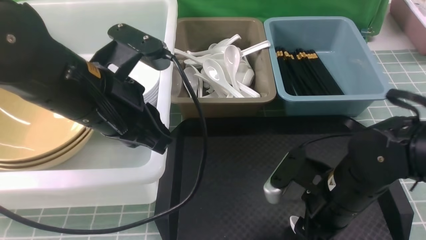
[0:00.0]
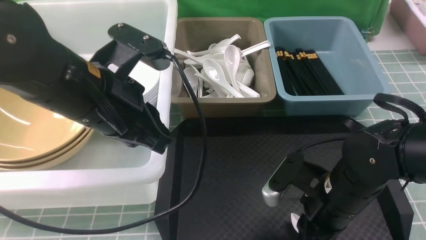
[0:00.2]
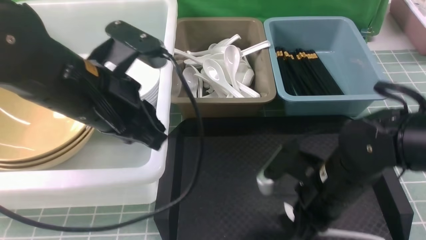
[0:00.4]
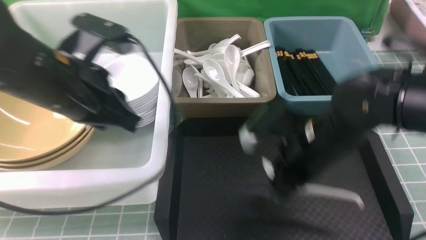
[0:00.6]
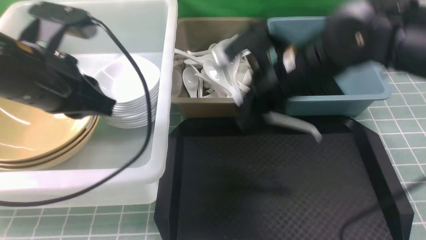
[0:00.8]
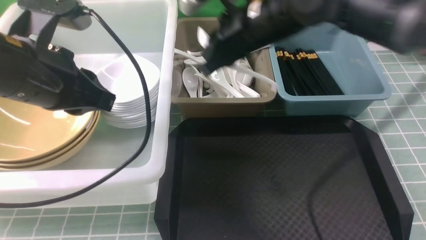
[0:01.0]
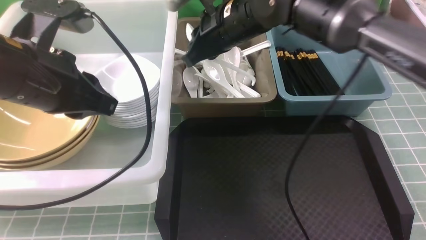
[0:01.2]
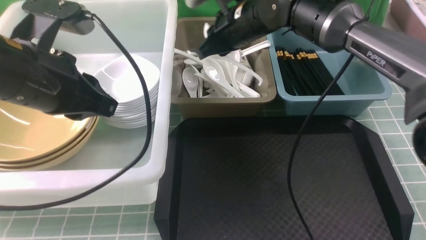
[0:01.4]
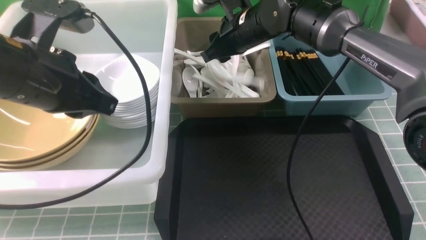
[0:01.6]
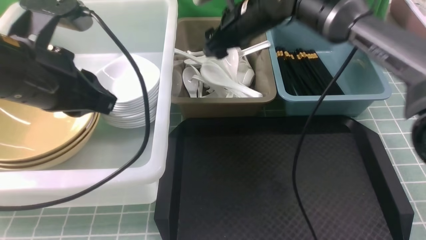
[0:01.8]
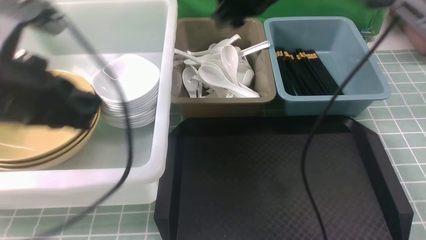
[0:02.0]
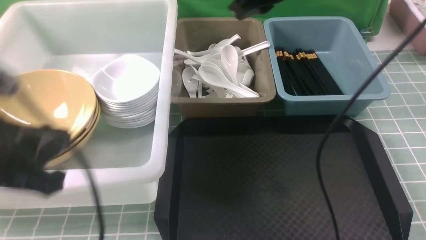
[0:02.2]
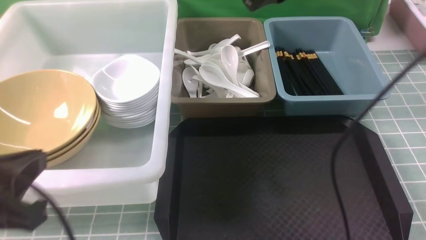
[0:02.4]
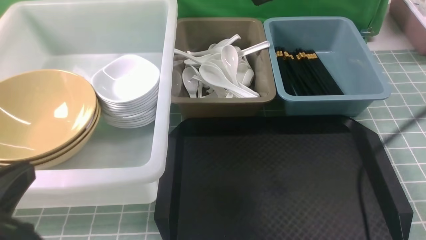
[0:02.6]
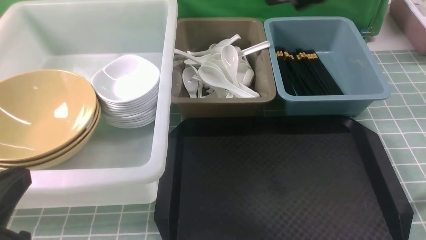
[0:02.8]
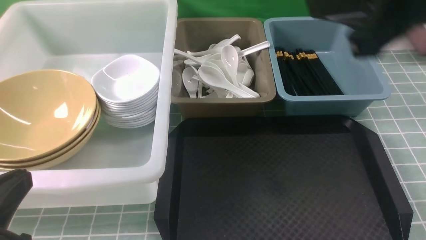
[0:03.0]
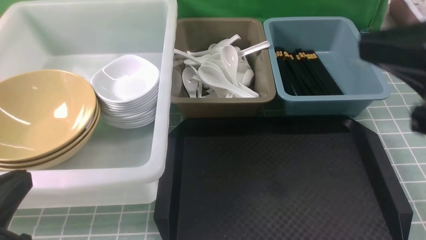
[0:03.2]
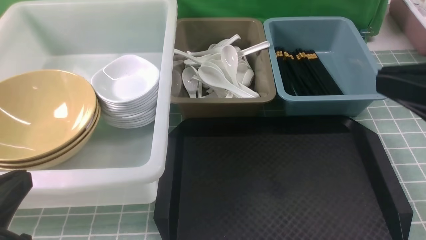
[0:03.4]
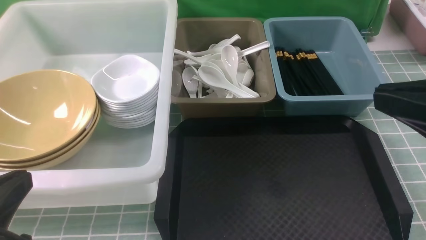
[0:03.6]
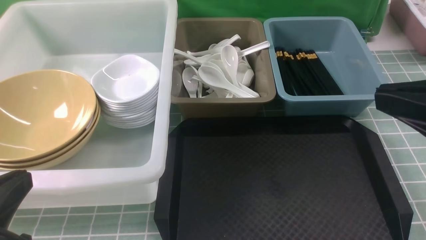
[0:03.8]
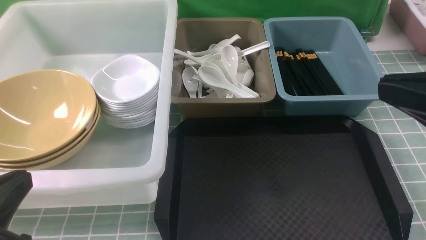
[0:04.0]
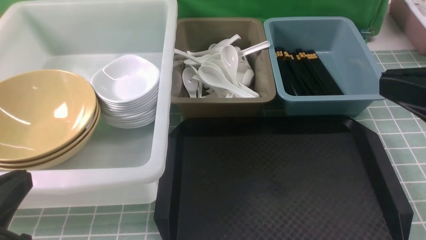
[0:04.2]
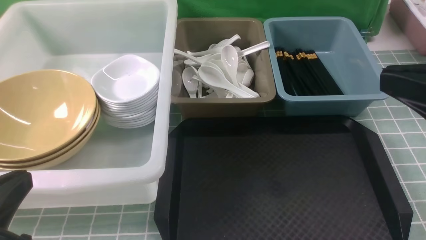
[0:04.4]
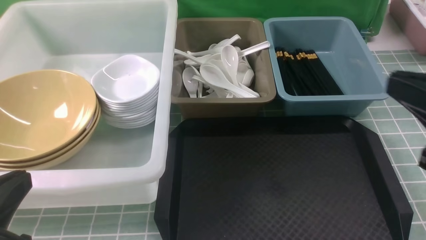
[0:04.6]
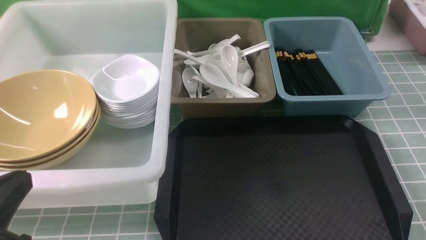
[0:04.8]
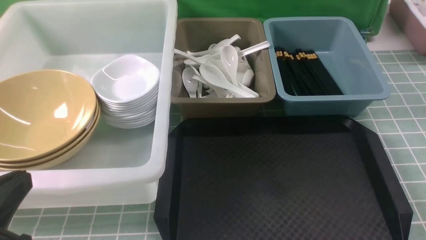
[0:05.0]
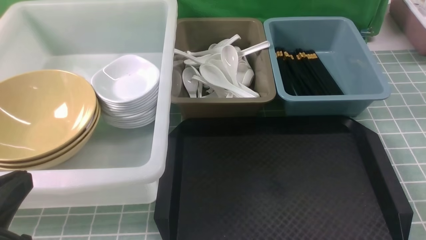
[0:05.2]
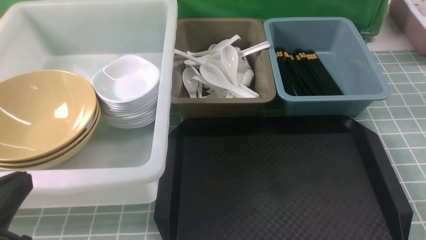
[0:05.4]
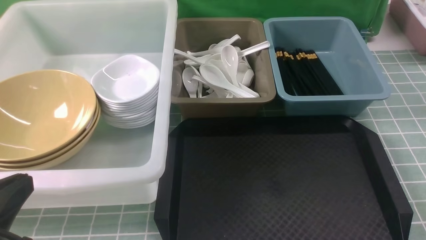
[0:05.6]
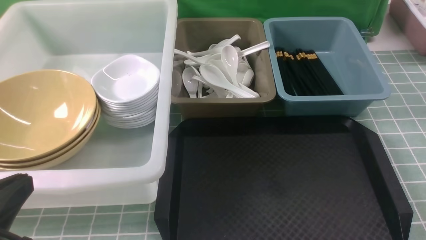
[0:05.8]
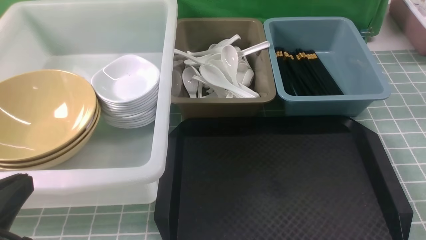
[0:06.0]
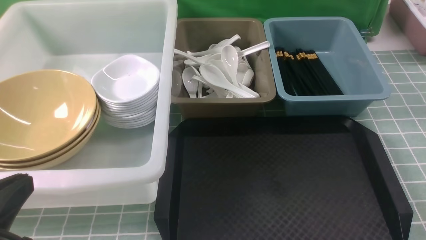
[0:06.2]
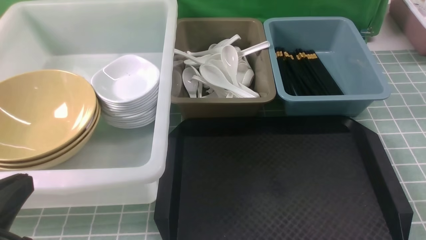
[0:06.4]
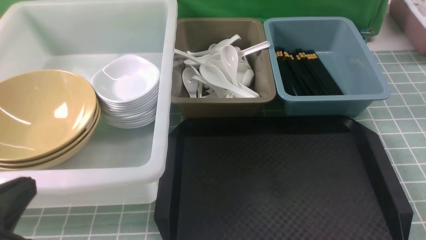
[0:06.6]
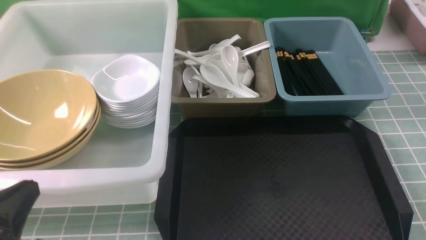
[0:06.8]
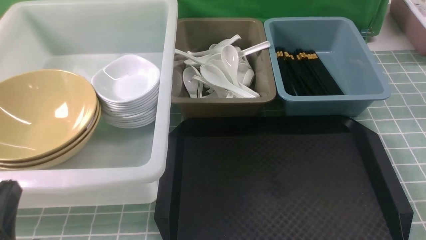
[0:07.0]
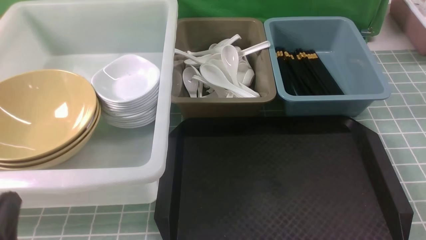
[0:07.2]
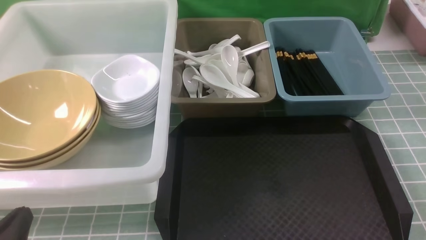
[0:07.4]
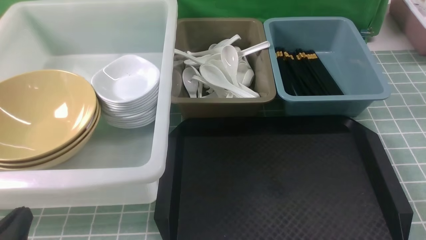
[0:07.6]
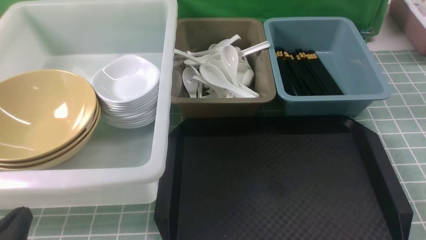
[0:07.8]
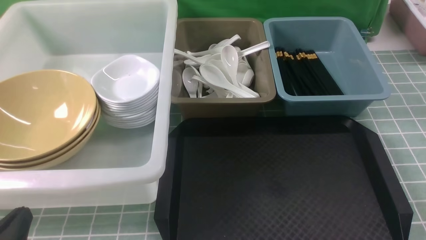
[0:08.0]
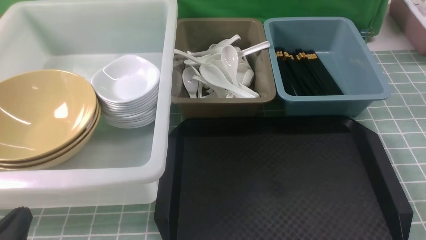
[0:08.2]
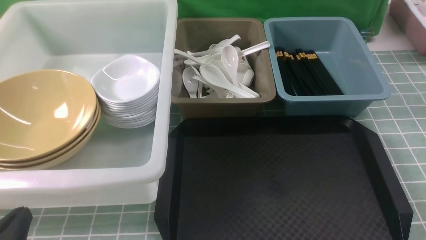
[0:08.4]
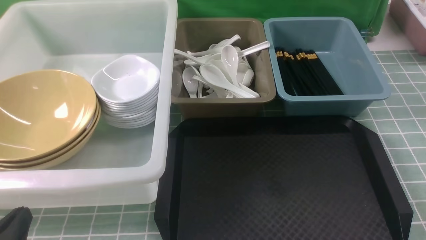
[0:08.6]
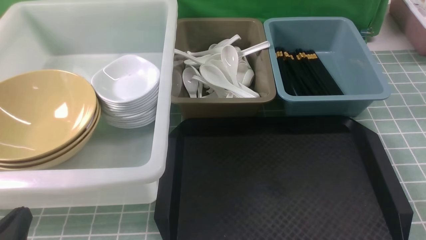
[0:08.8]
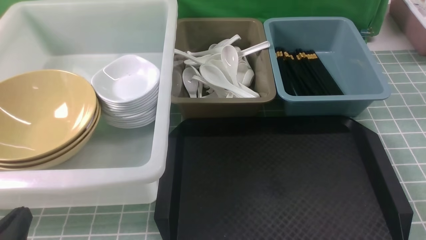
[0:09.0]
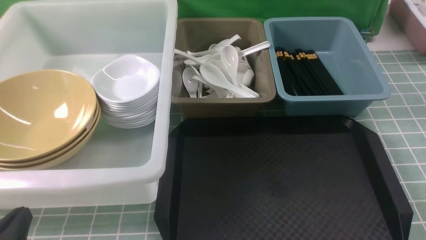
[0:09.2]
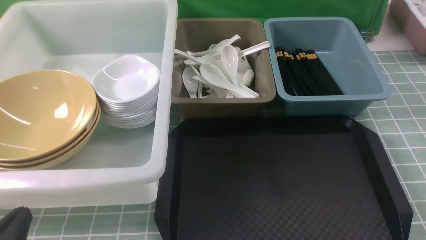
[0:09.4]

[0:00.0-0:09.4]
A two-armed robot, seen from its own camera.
Task of the whole recording: on blue table put chopsticks spoon bowls plates into blue grey white boxes.
Step, 0:00.8 to 0:02.0: use the right arm to put the soup spoon into the small storage box in the middle.
0:00.0 to 0:01.6: The right gripper heads forward and upward, covering some 25 cm, and closes, then opens again, while the left gripper is displaced to the left by roughly 5 cm.
0:01.6 to 0:03.2: The left gripper travels backward by approximately 15 cm. Meanwhile the right gripper moves backward and to the right, some 35 cm, and closes up.
0:03.2 to 0:04.8: The right gripper goes some 15 cm downward, to the right and backward.
0:06.2 to 0:07.8: The left gripper goes approximately 10 cm downward.
0:07.8 to 0:09.4: Neither gripper changes place.

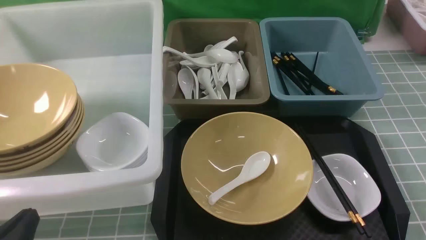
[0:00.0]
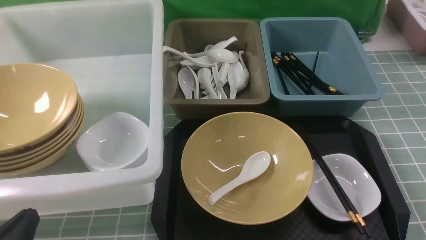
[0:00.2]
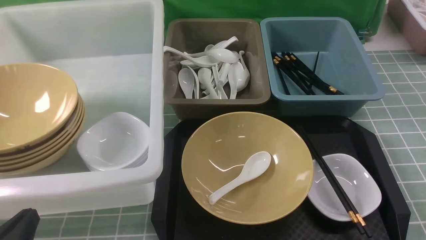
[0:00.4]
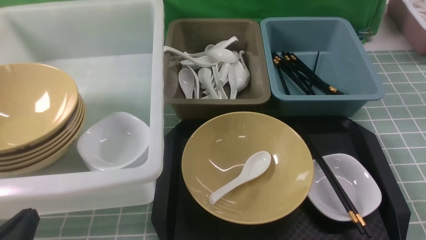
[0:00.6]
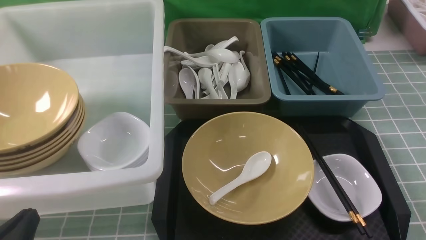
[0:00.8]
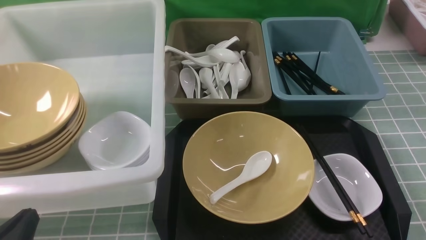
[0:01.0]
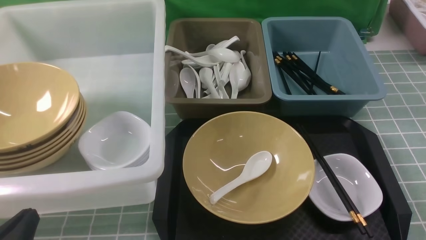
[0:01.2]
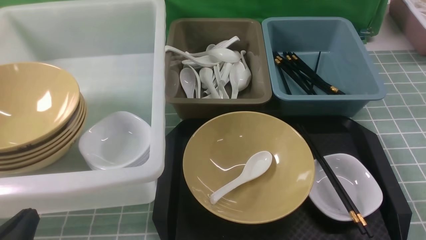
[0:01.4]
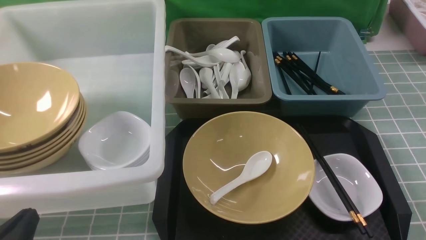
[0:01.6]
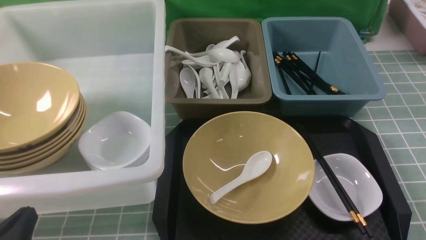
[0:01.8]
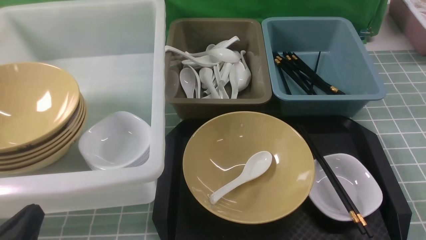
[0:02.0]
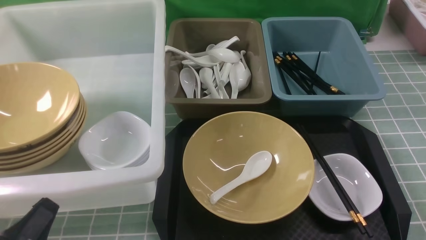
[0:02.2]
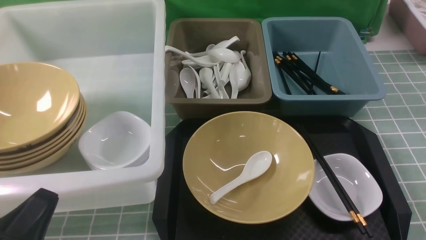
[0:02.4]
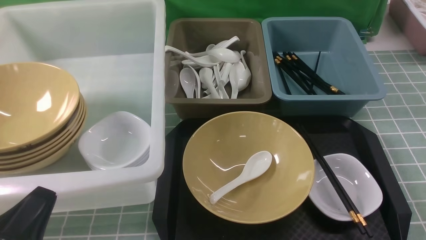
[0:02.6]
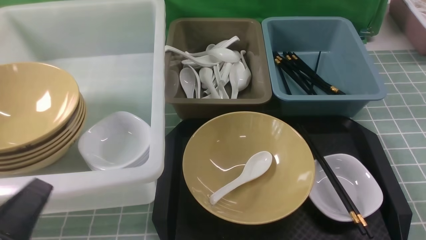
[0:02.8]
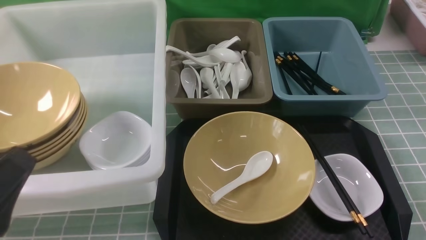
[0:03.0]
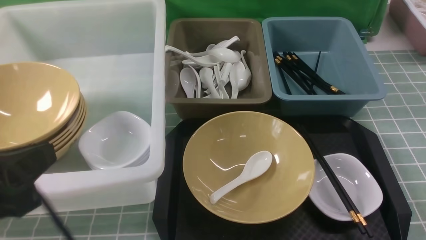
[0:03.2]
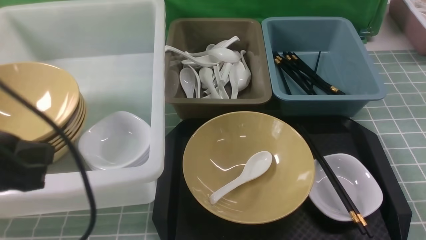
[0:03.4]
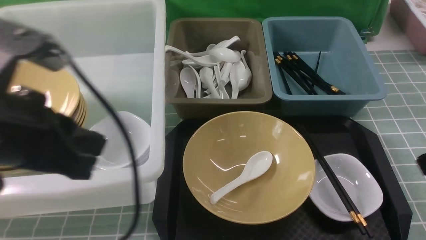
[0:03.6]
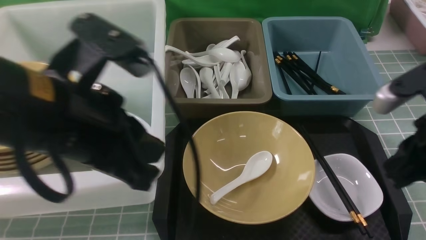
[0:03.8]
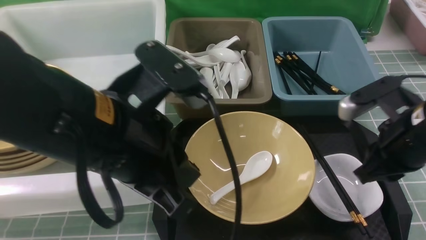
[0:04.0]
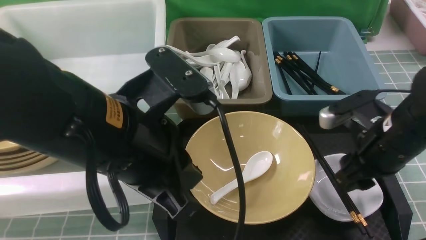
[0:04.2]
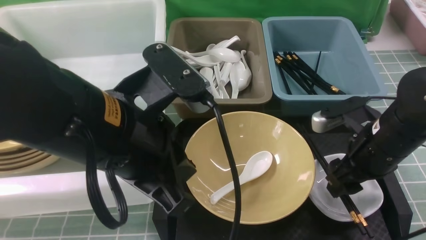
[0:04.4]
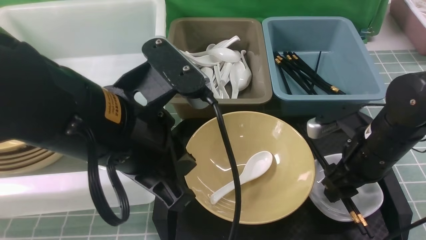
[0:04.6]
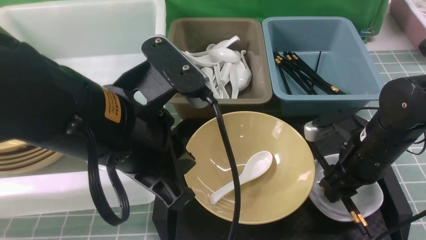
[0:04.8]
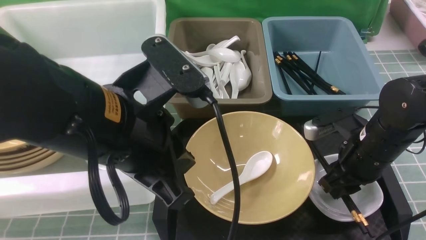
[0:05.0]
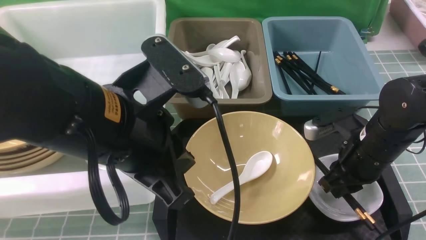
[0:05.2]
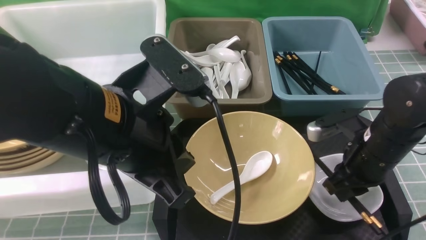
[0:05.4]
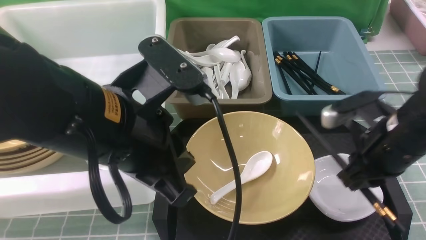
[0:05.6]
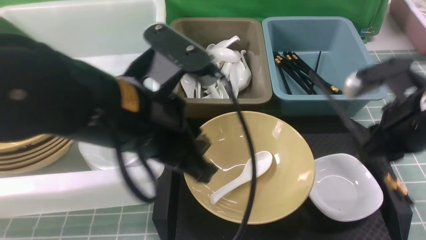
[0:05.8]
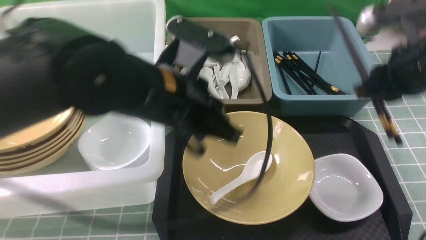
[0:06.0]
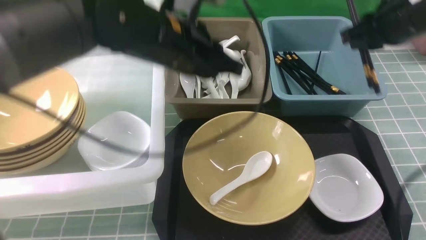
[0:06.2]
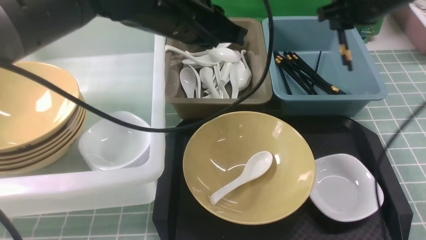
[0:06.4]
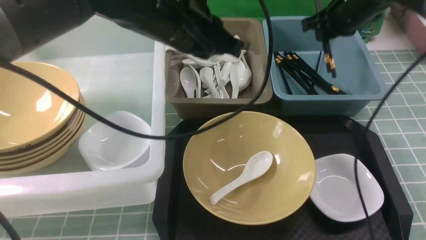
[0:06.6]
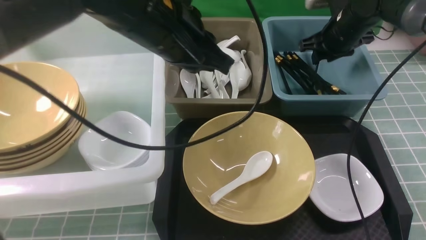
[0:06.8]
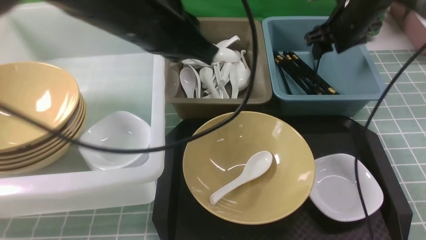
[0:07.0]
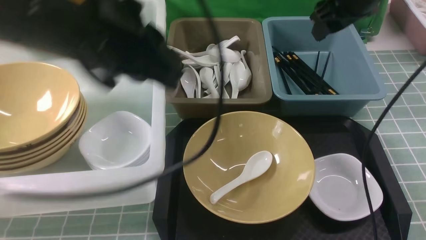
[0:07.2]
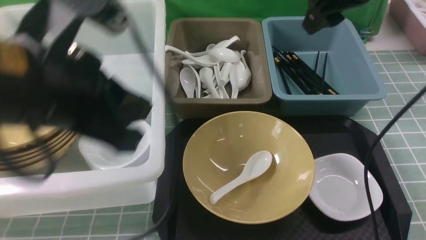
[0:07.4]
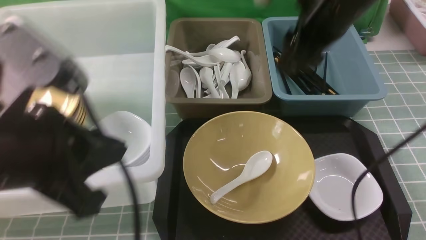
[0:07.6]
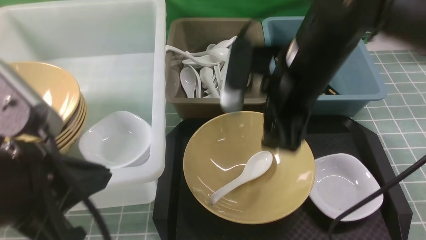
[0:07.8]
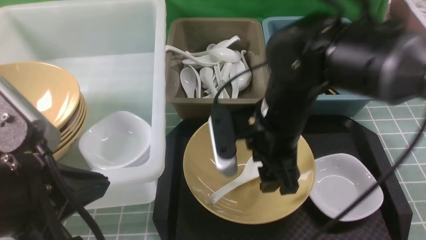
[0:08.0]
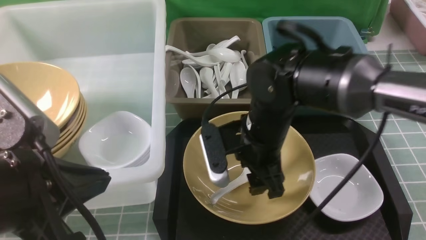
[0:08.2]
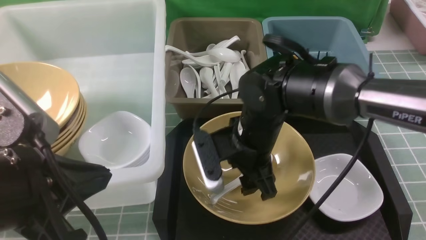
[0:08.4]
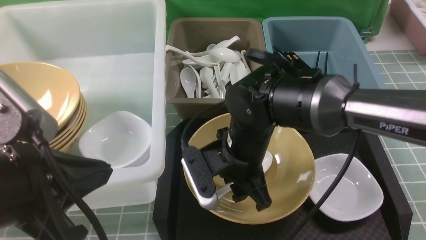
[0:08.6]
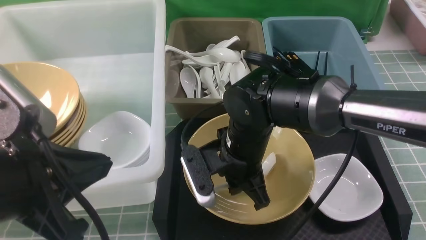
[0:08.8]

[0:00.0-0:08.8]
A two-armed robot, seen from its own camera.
Task of the whole recording: on blue table put chopsticks spoon bowls plates into blue grey white boxes.
Step, 0:00.0 to 0:05.4: use the right arm to grab the chopsticks.
Step, 0:05.6 to 0:07.0: use the right arm to put the chopsticks into the small storage box on the right.
0:00.0 to 0:01.4: Both grippers stay about where they are.
0:01.4 to 0:03.0: The grippers both shift upward by about 10 cm.
0:03.0 to 0:04.4: The left gripper travels to the right and forward by roughly 15 cm. The right gripper goes some 20 cm forward, and opens.
0:04.4 to 0:05.8: The right gripper moves upward, some 10 cm, and closes up.
0:05.8 to 0:07.4: The right gripper moves forward, upward and to the left, about 15 cm, and opens its fingers, while the left gripper shifts about 10 cm to the left, and moves roughly 10 cm forward and comes back.
0:07.4 to 0:08.8: The left gripper travels backward by about 5 cm. Meanwhile the right gripper shifts some 25 cm downward, to the left and backward, and closes.
